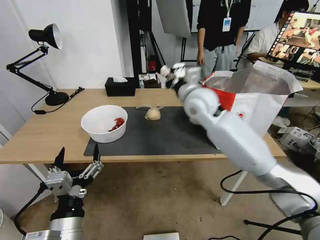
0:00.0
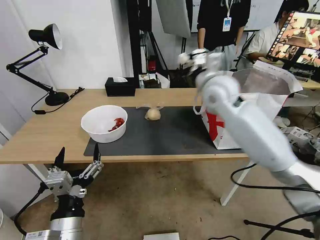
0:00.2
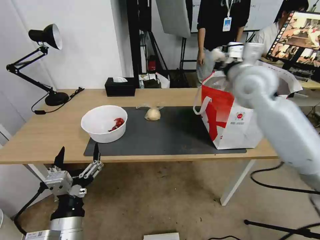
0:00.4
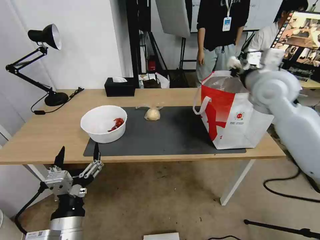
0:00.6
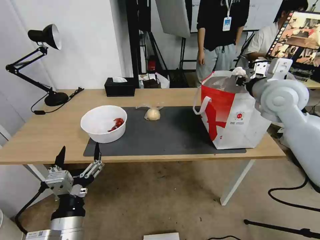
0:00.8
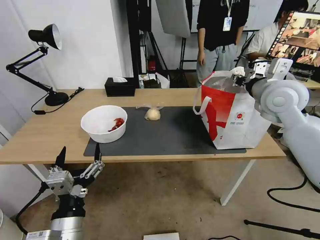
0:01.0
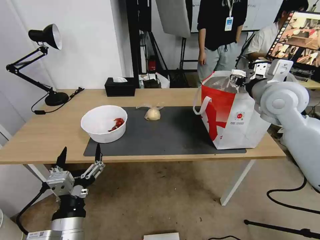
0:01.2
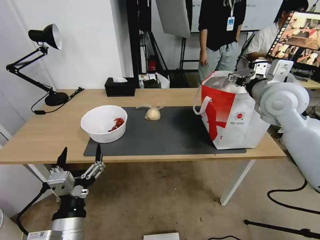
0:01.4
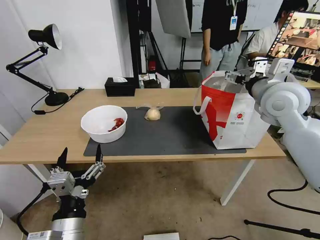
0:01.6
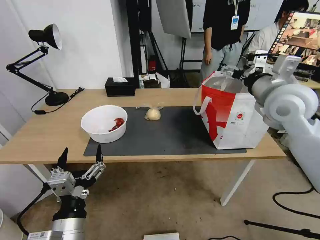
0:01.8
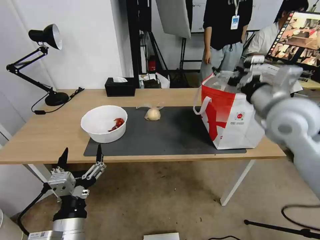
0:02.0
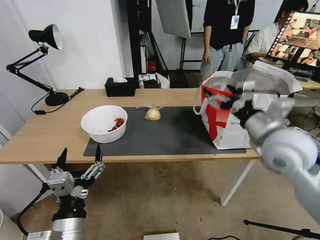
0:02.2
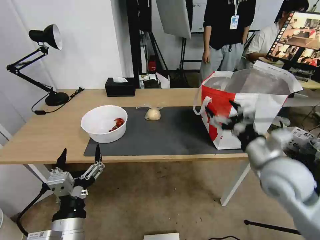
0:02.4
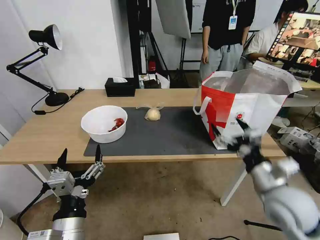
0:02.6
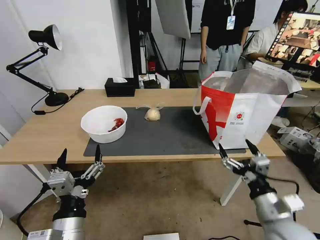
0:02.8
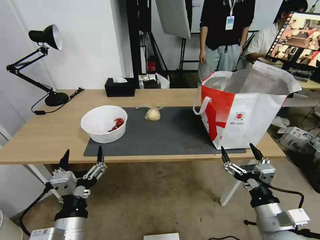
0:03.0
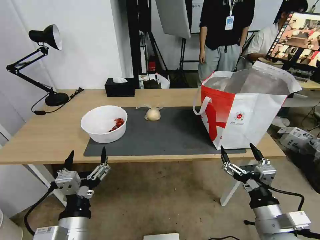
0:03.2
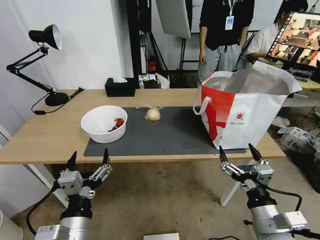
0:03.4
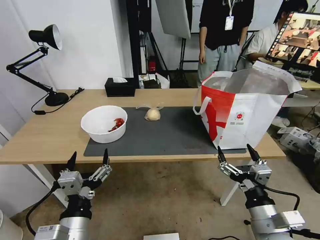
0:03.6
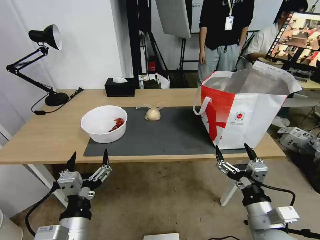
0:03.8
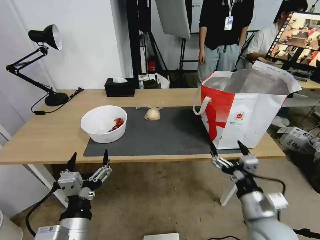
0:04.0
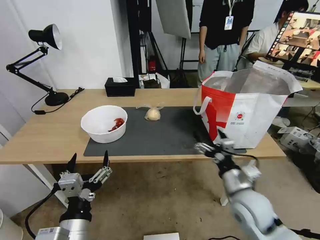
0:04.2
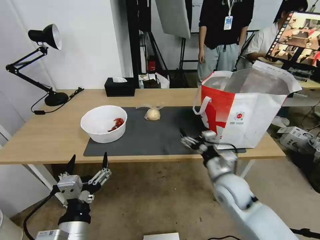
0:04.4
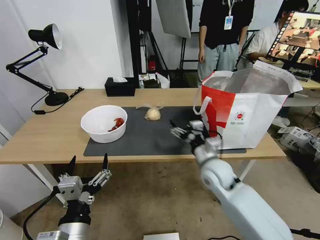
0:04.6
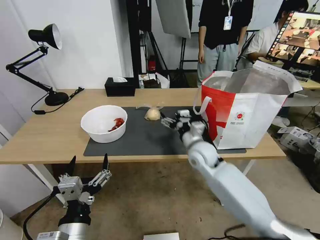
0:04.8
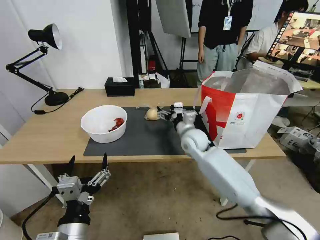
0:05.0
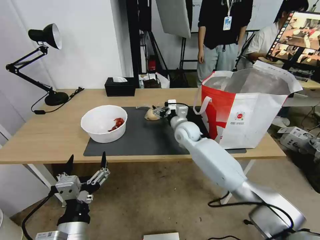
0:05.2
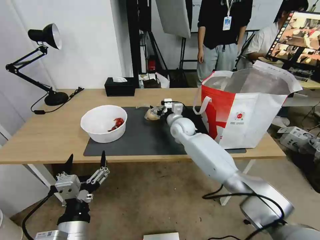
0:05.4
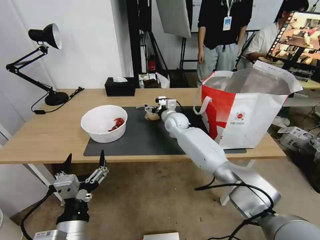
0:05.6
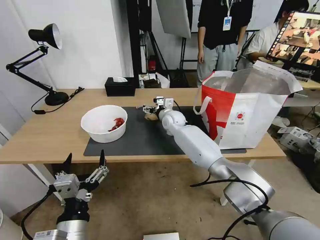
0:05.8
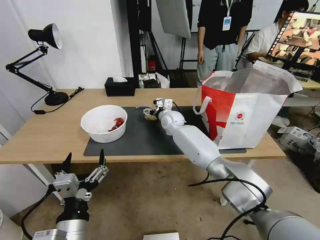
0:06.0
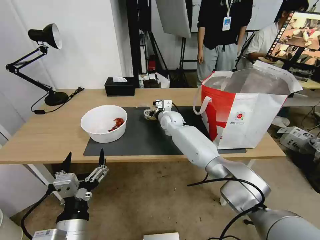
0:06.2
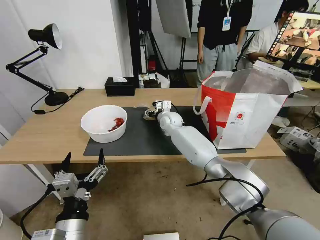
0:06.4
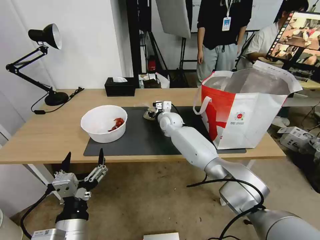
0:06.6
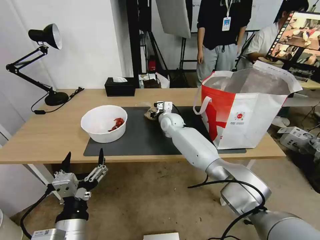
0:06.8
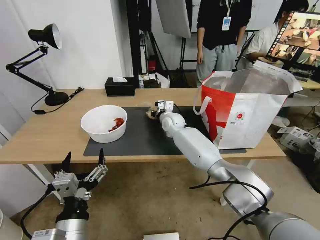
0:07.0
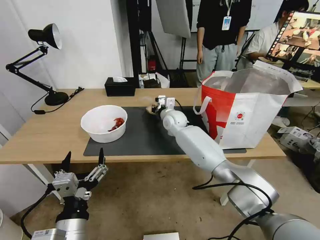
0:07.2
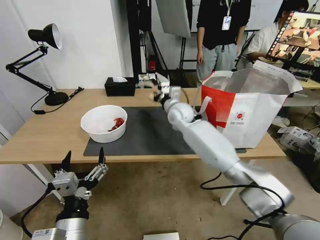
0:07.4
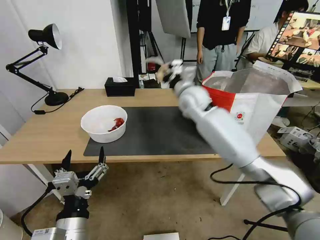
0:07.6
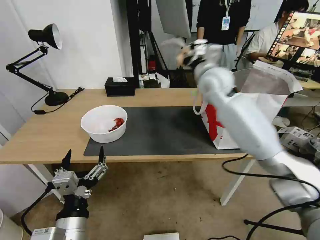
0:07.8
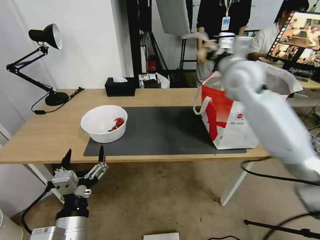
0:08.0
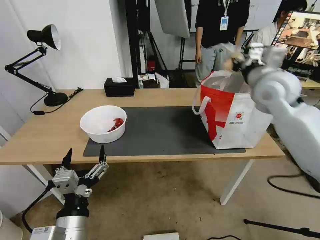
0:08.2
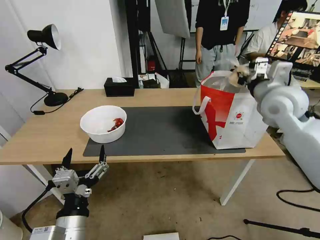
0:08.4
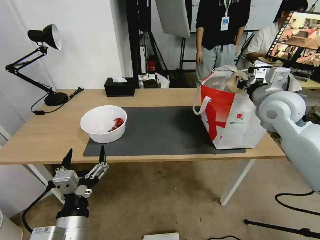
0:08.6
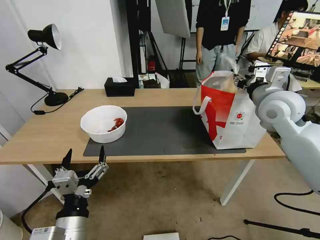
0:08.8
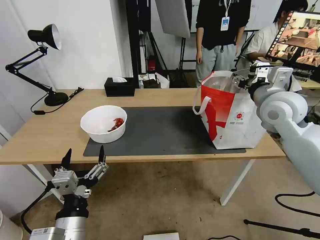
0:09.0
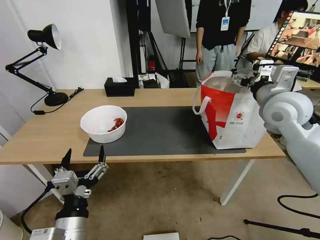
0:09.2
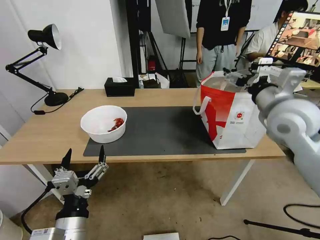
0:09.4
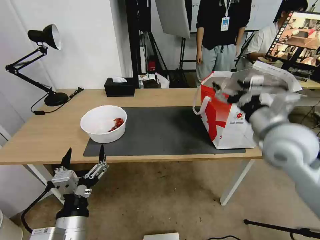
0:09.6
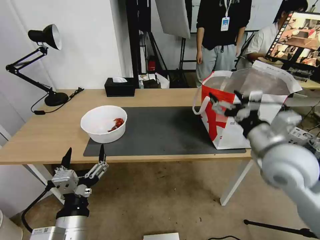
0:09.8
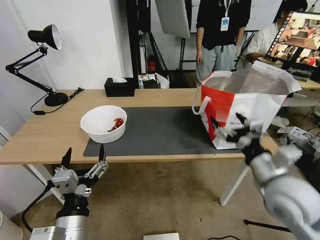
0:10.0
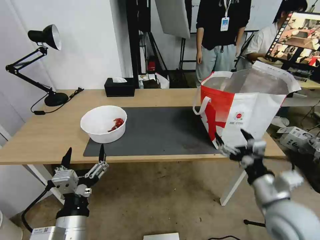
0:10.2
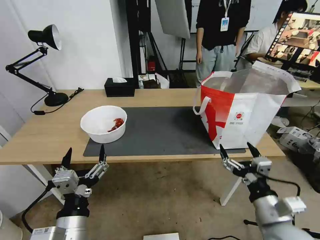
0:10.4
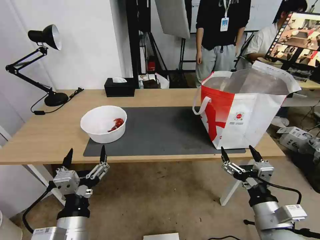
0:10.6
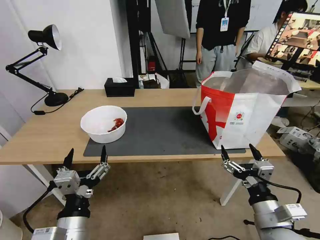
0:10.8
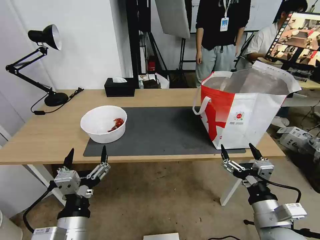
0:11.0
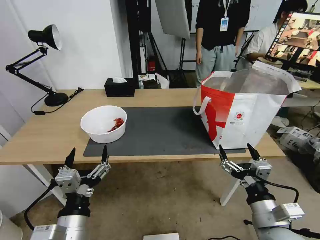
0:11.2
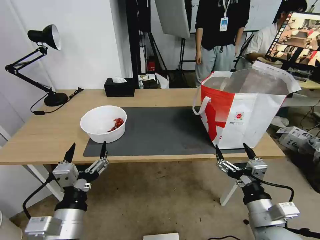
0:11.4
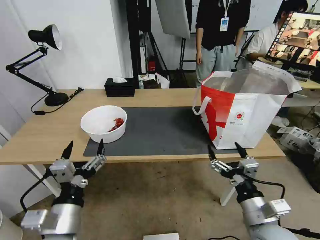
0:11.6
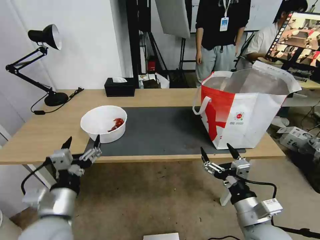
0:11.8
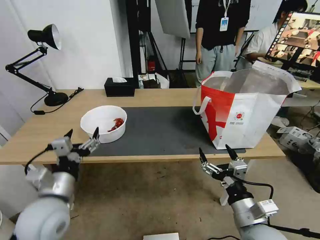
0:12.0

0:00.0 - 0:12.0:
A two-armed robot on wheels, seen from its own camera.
Task of the whole recording: Pick up the trash from the table and place it into the takeout bag.
0:00.0 - 0:01.6: The right gripper shifts roughly 20 cm to the right, and opens up.
0:01.6 - 0:03.0: The right gripper heads backward and downward, covering some 35 cm.
0:03.0 - 0:04.4: The right gripper moves forward and to the left, about 15 cm.
0:04.4 - 0:06.0: The right gripper shifts approximately 35 cm forward and to the left.
0:06.0 - 0:07.6: The right gripper moves upward and backward, approximately 15 cm, and closes its fingers.
0:07.6 - 0:09.0: The right gripper shifts some 25 cm to the right and backward, and opens.
0:09.0 - 0:10.4: The right gripper travels backward and downward by some 35 cm, and opens its fingers.
0:10.4 - 0:12.0: The left gripper heads forward and to the left, covering about 10 cm.

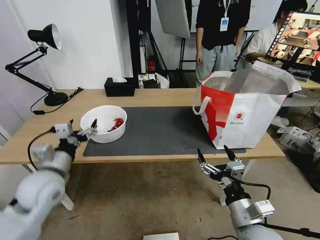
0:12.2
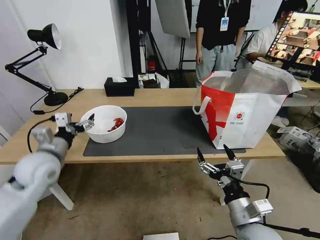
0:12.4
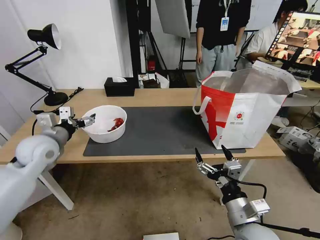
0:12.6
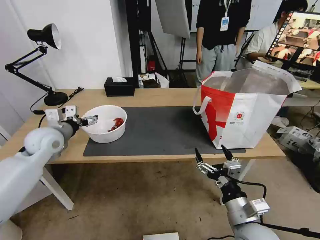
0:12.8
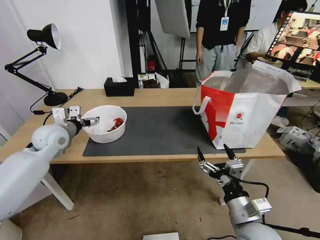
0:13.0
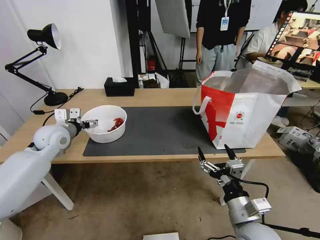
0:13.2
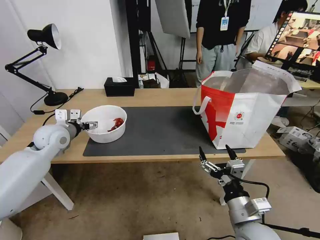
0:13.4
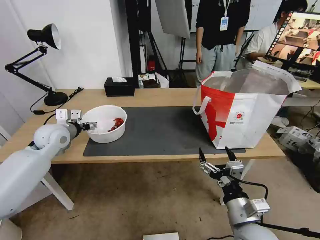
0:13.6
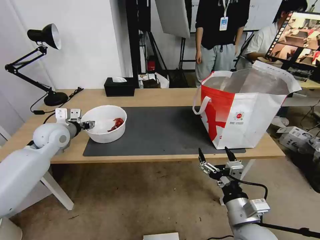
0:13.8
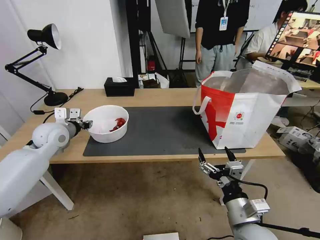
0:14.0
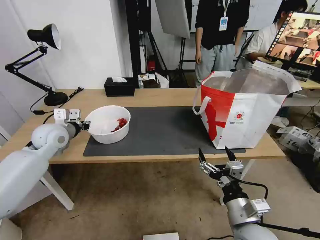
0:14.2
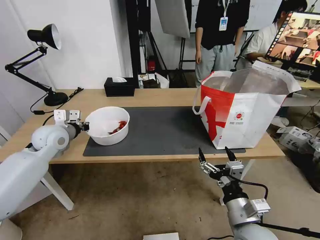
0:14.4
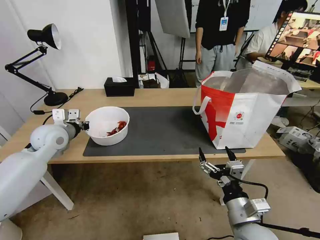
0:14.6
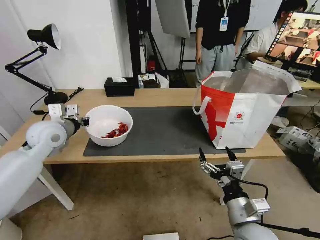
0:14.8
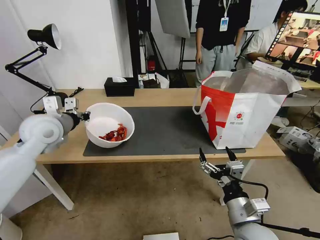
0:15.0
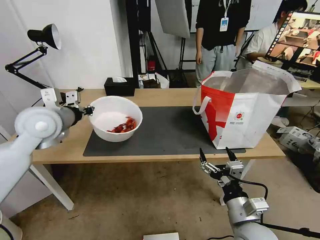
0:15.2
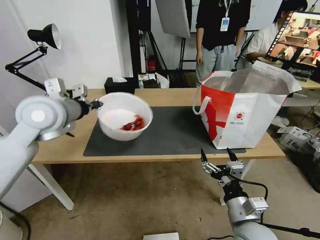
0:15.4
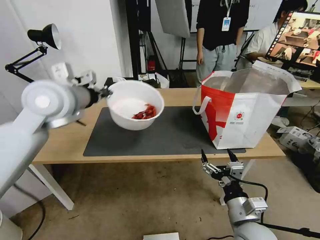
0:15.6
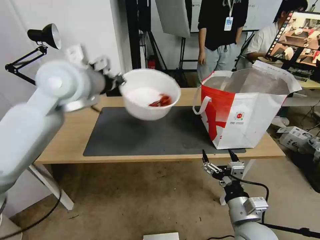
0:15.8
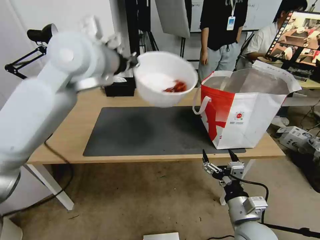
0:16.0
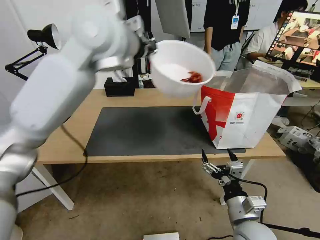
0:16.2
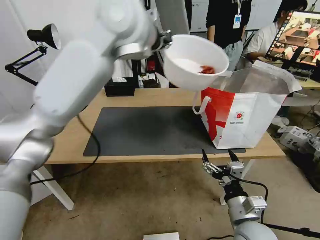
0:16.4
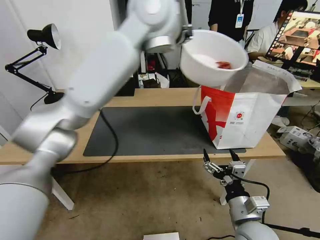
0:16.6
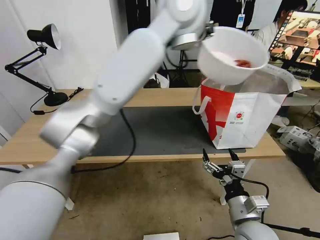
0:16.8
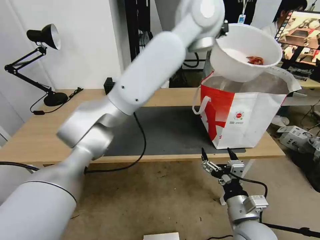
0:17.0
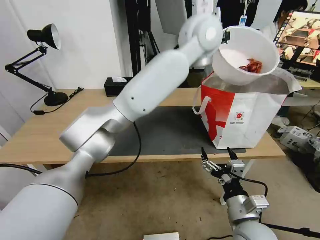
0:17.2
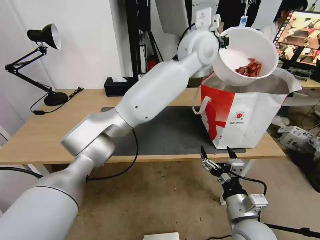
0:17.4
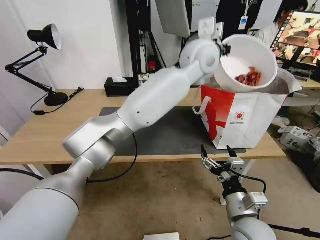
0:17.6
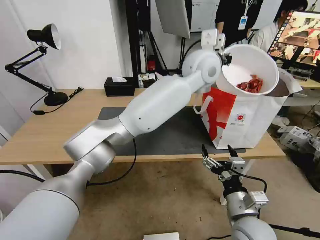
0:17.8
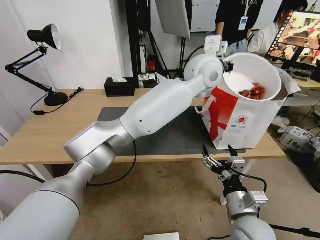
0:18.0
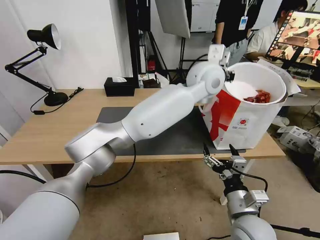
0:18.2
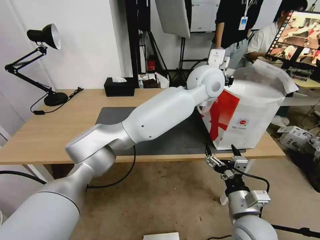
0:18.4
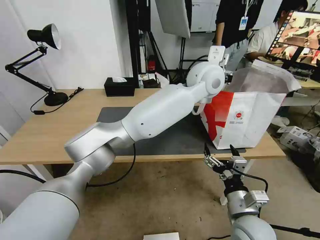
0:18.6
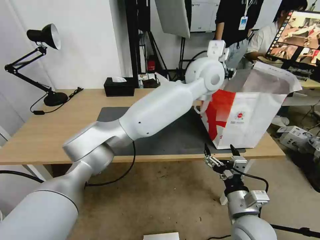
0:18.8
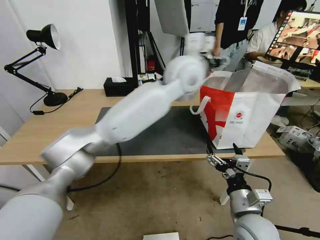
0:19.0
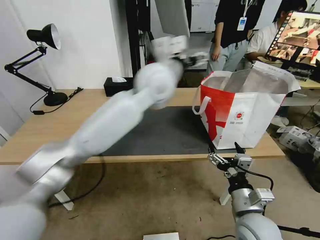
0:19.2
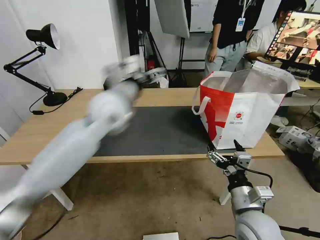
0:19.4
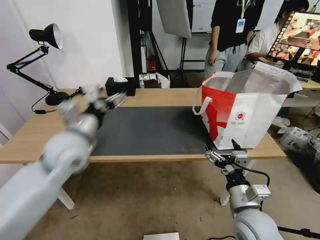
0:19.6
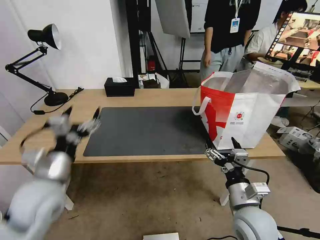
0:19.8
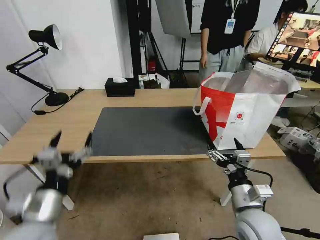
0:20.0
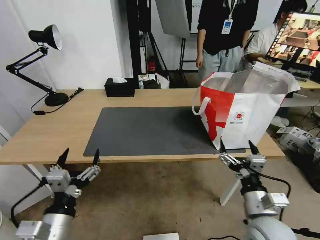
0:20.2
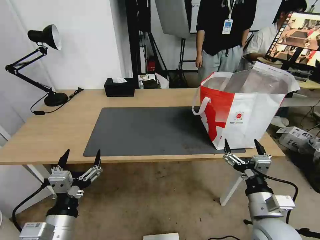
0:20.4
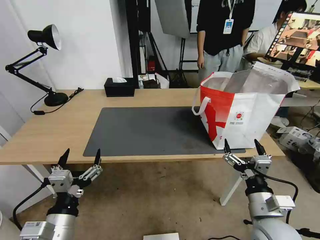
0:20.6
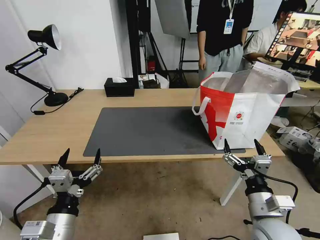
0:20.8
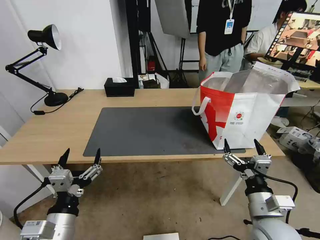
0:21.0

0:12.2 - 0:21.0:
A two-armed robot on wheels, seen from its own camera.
Task of the whole recording: Pick up the trash from the table and place it into the takeout bag.
0:12.2 - 0:13.6: The left gripper is displaced forward by roughly 15 cm.
0:13.6 - 0:15.2: The left gripper shifts roughly 15 cm upward, backward and to the right, and closes.
0:15.2 - 0:16.6: The left gripper is displaced to the right and upward by roughly 35 cm.
0:16.6 - 0:18.0: The left gripper heads to the right and downward, covering approximately 20 cm.
0:18.0 - 0:19.6: The left gripper heads to the left and backward, covering roughly 35 cm, and opens its fingers.
0:19.6 - 0:21.0: The left gripper travels backward and downward by roughly 30 cm.

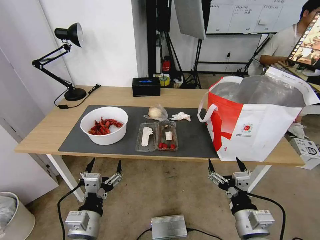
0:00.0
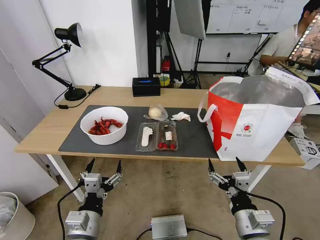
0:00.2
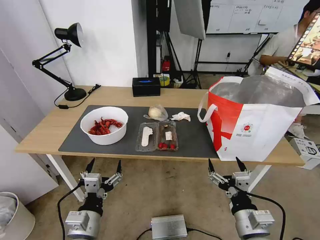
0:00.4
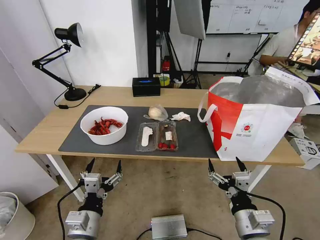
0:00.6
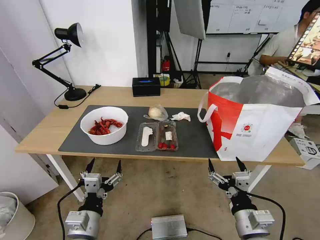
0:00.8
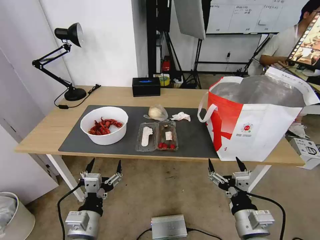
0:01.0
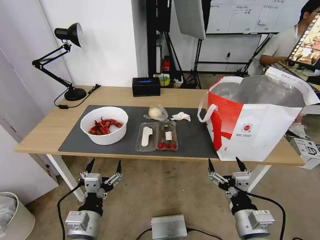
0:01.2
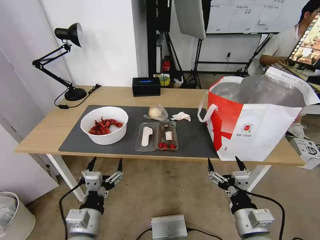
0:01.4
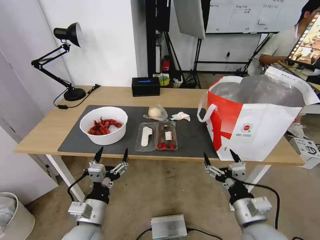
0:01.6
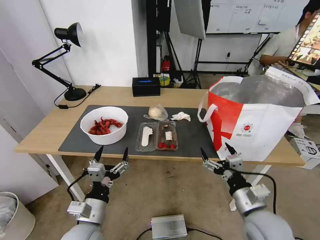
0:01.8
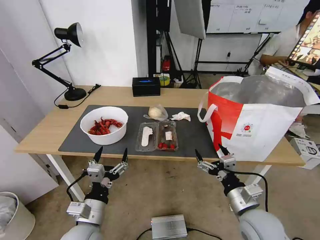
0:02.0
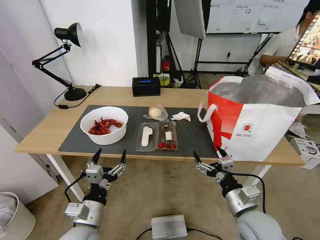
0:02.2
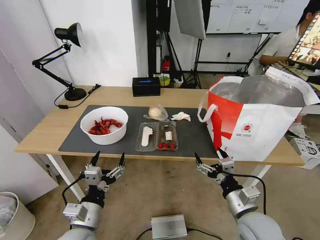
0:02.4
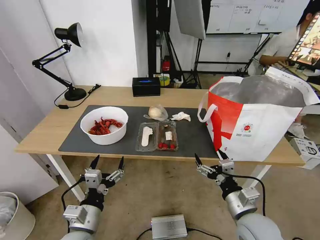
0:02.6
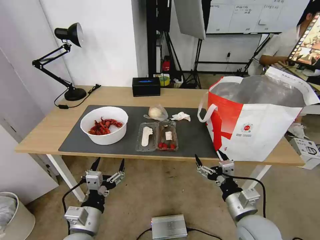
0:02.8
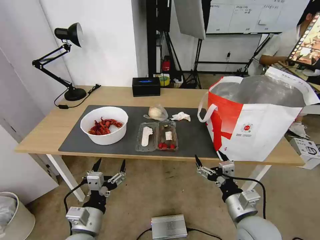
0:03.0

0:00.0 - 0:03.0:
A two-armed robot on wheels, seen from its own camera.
Task of the whole recording: Pick up the trash from the table and place it into the takeout bag.
0:01.6 - 0:03.0: There are only small adjustments of the grippers.
